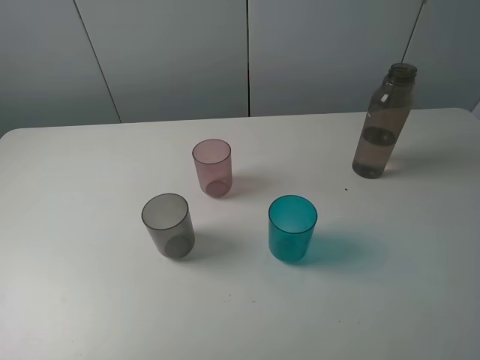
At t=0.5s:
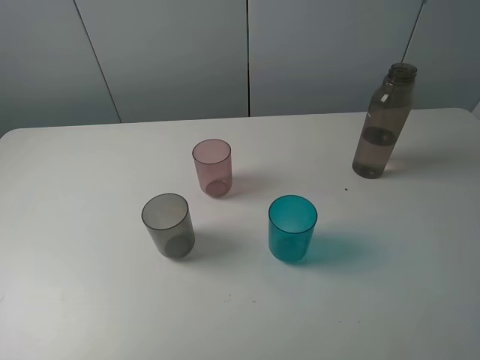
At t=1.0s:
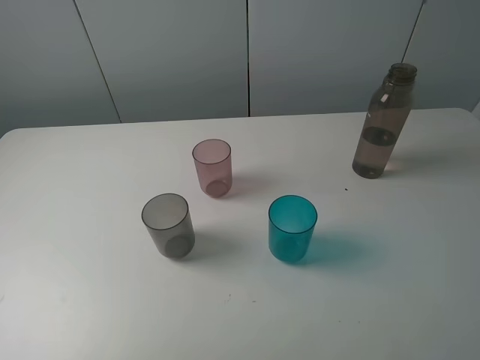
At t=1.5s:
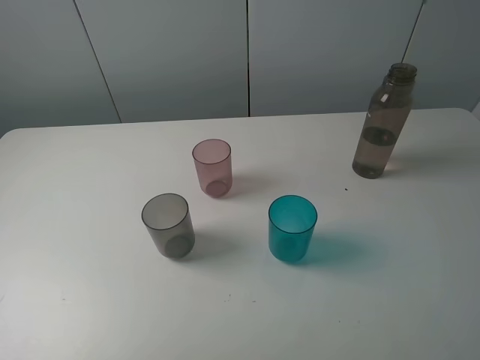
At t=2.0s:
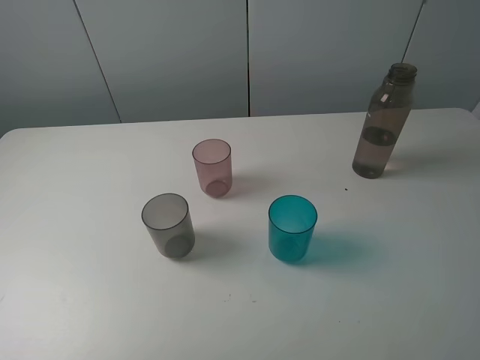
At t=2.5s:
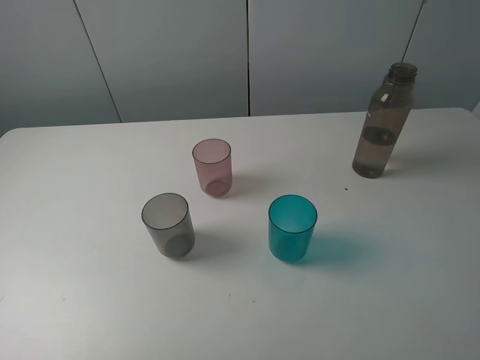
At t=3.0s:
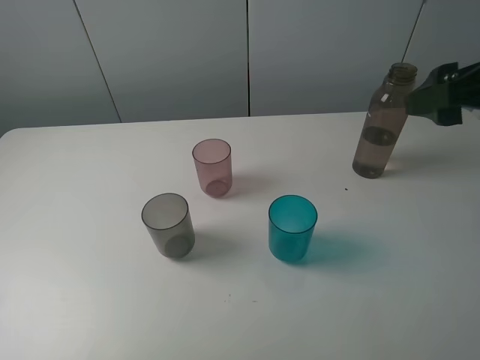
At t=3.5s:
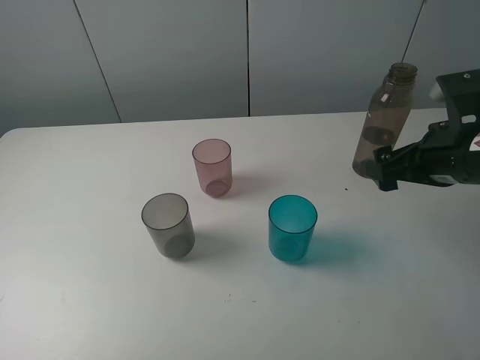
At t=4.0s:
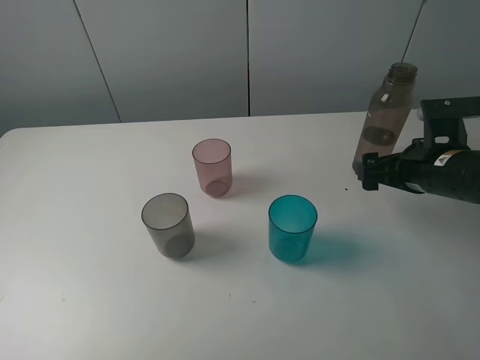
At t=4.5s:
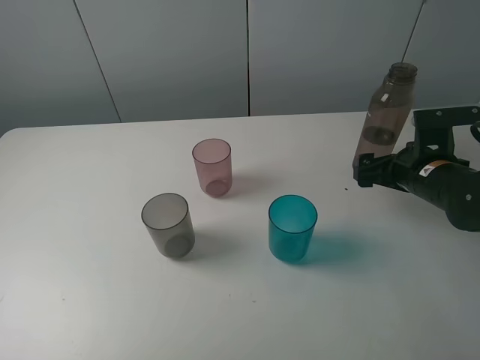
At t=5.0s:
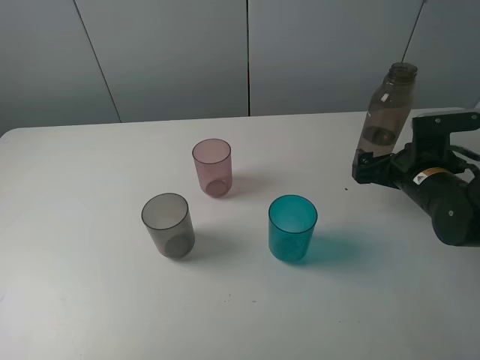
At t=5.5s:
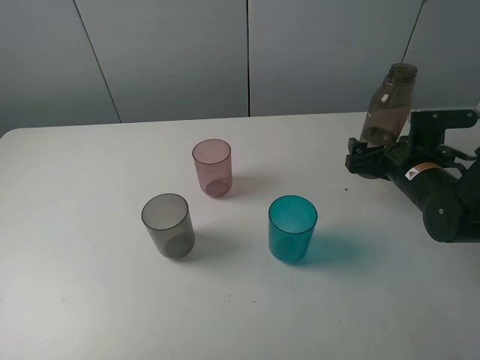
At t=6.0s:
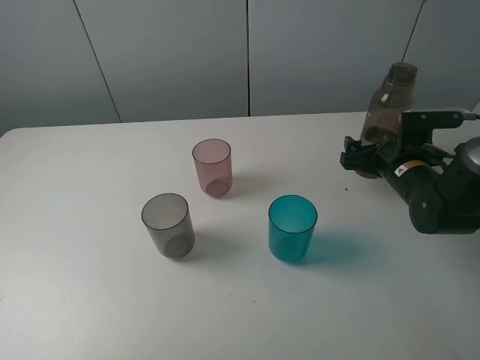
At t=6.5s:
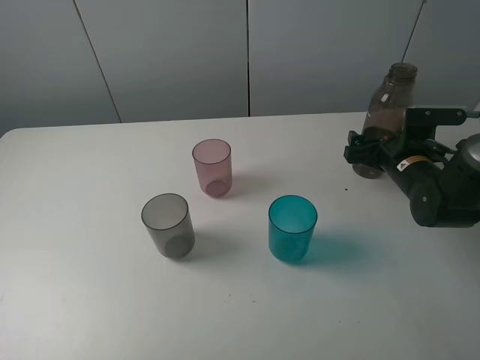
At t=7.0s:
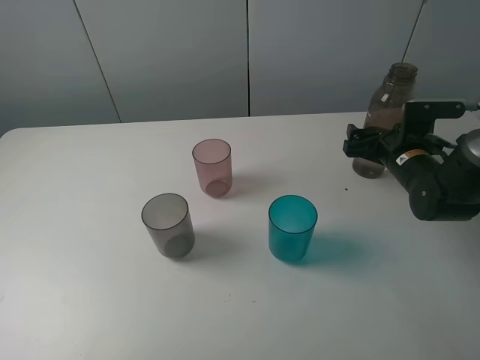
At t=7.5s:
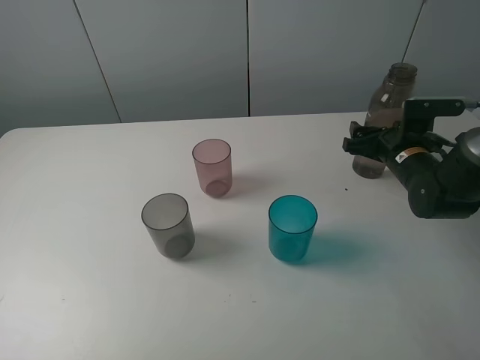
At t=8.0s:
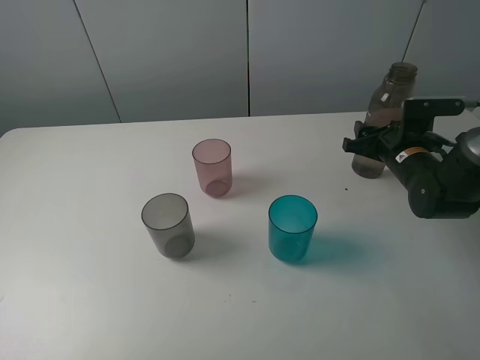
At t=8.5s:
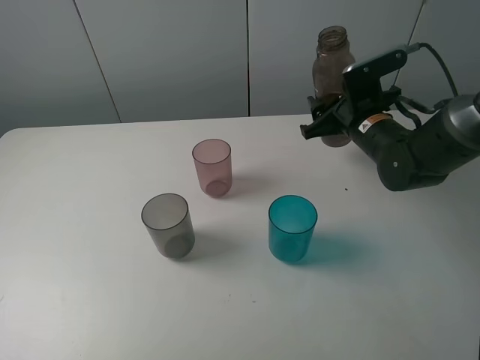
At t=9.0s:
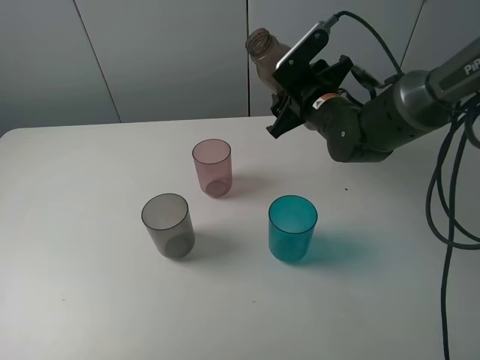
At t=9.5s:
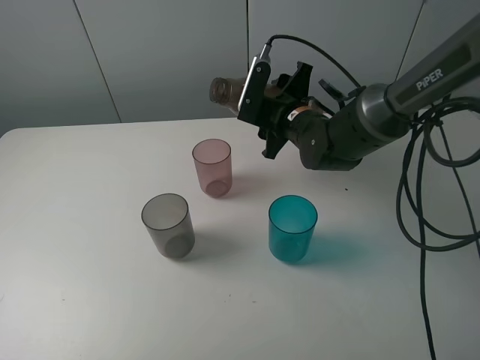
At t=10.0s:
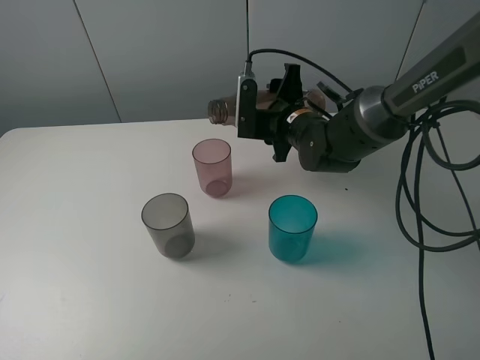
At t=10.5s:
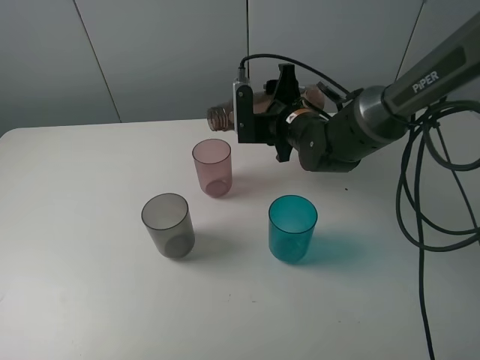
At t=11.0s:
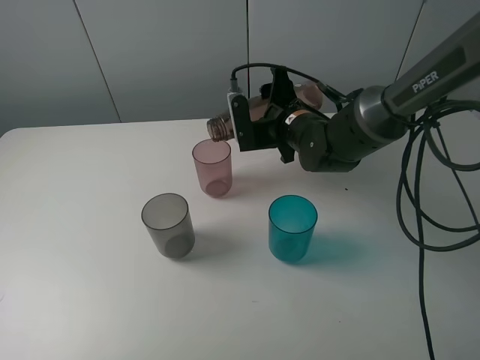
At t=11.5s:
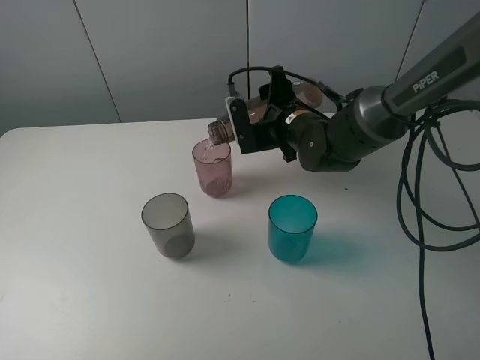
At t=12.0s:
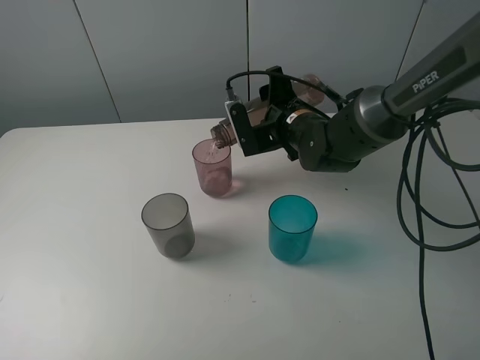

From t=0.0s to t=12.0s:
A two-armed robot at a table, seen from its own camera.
Task of the whole recording: pick up the bottle filled with water and pour water into the middle cup of the three cups.
Step, from t=0.0s to t=8.0s: Grasp the brown bottle with the right gripper.
From t=0.0s to t=2.0s: Both grippers stay put.
From t=2.0s to t=4.0s: The right gripper moves forward and downward, roughly 30 cm.
From t=4.0s to t=6.0s: The right gripper is displaced downward and forward by about 10 cm.
From t=6.0s to t=8.0s: The right gripper closes.
From t=8.0s to t=10.0s: The right gripper heads to the left, covering some 15 cm.

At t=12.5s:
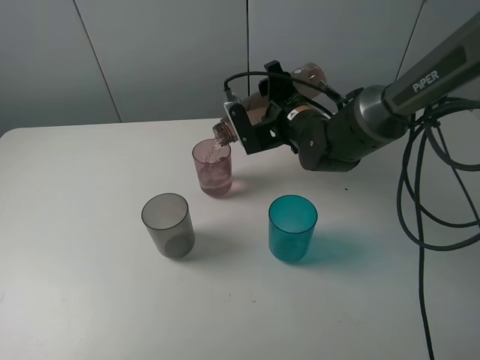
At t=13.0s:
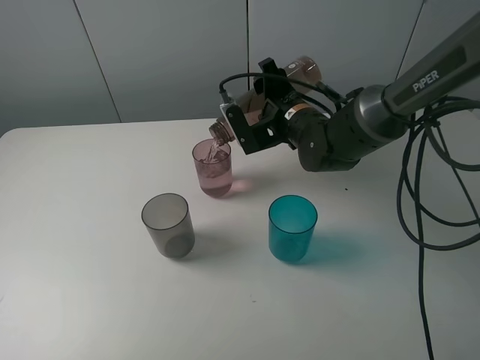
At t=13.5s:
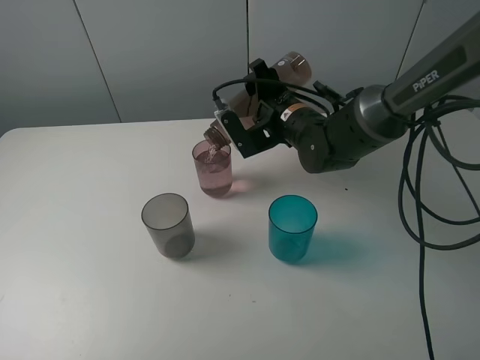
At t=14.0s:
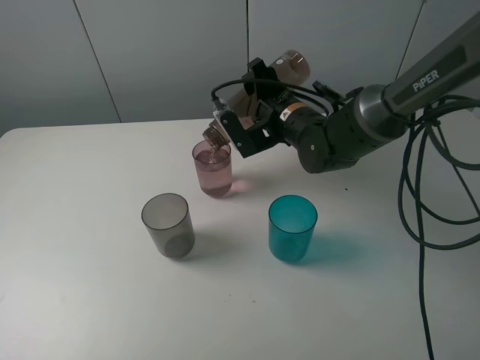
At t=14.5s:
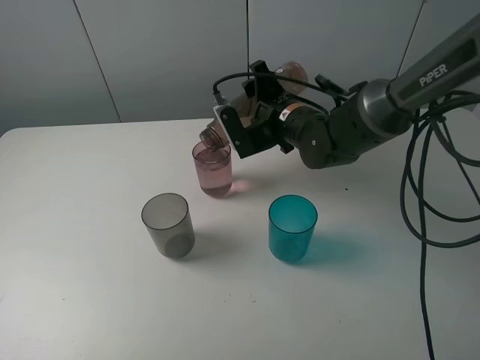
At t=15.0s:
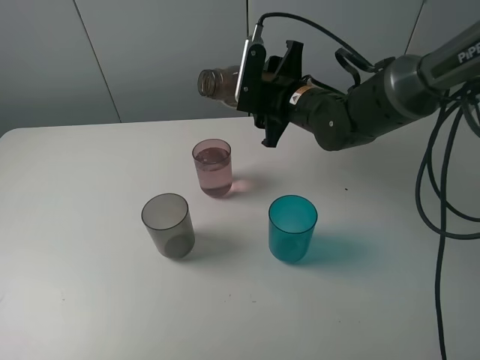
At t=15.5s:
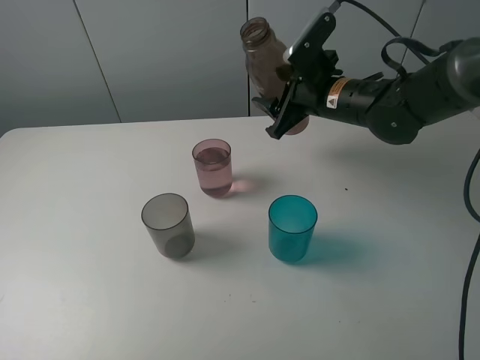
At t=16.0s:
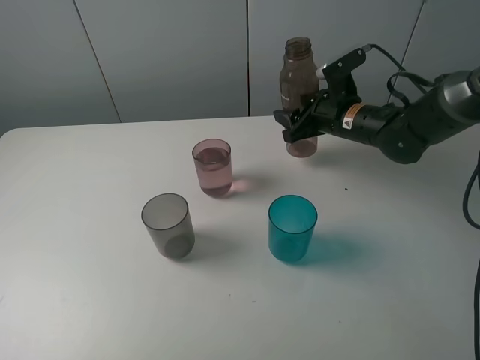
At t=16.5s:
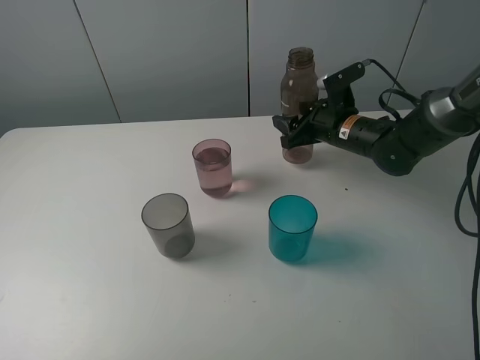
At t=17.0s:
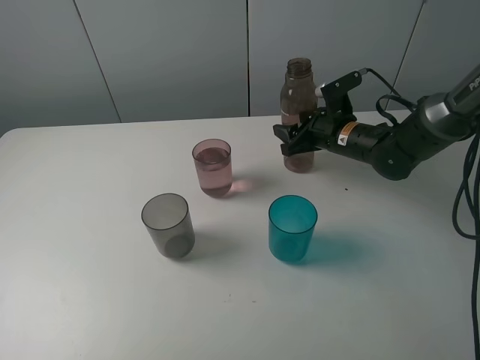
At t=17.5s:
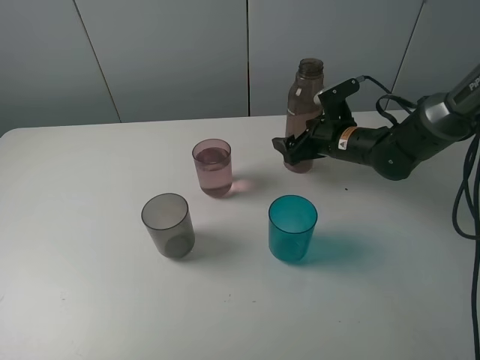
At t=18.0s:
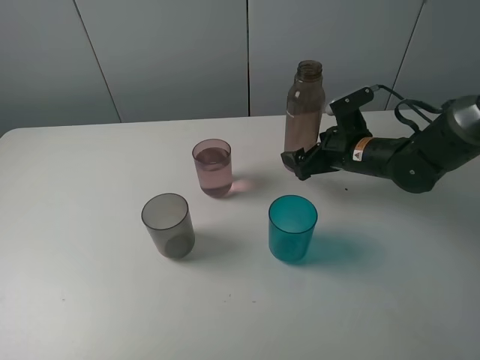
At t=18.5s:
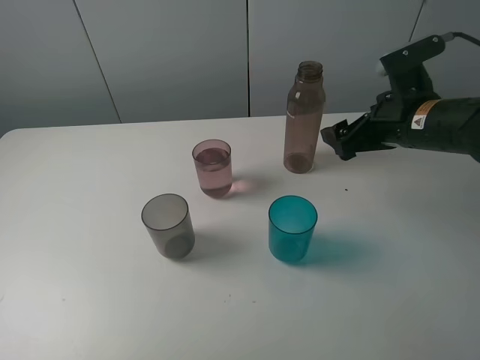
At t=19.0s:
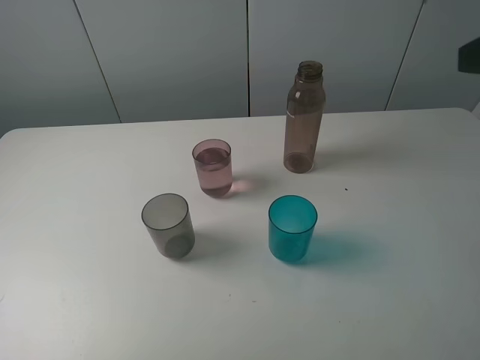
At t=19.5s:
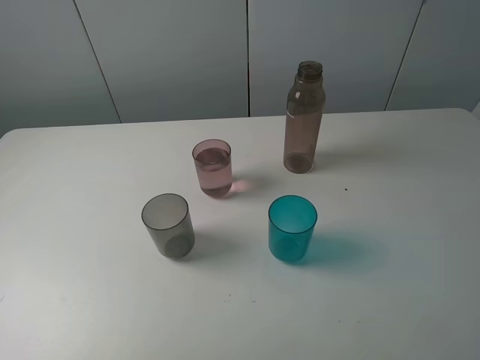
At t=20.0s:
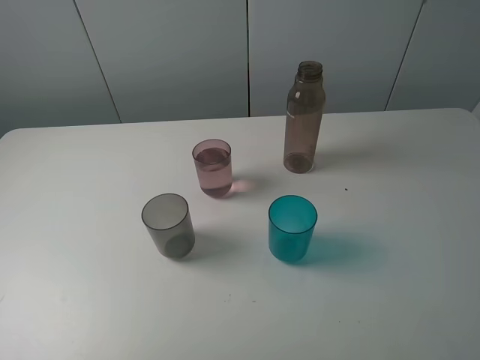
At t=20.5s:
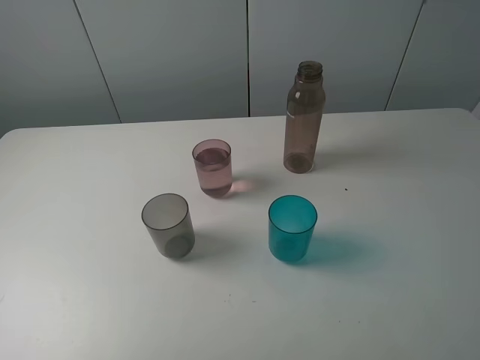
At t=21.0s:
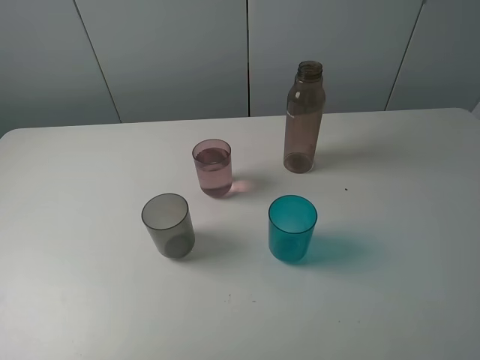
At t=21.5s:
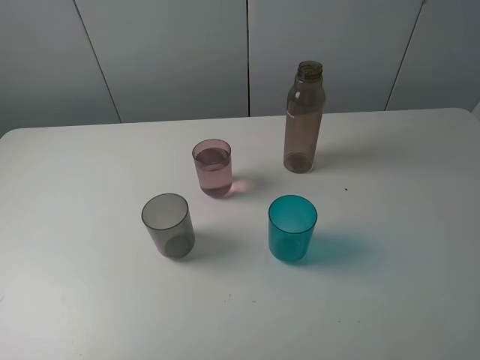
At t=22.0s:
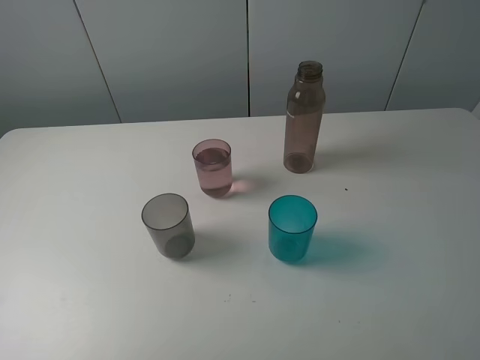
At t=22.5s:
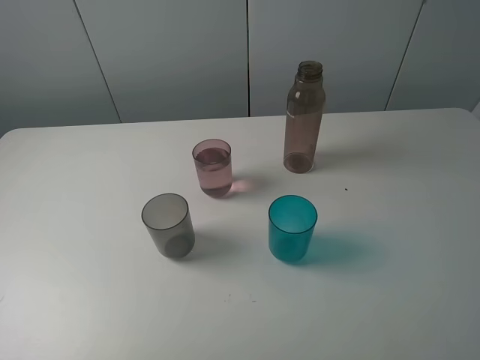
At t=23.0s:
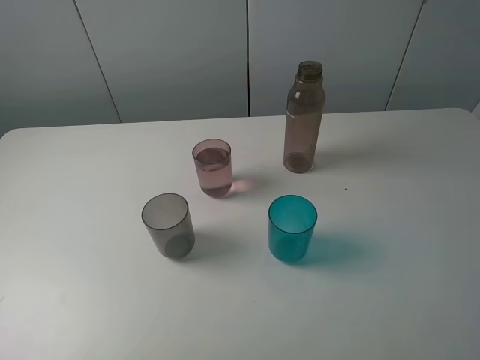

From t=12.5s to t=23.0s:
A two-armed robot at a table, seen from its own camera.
Task of the whole recording: pick up the bottle filled with water and pour water into the middle cup of the three cups.
Step, from t=12.5s to t=15.5s: Pour water from brown bottle to red cup with the right gripper.
Step, from t=16.0s to t=18.0s: Place the brown bottle with the right gripper.
From t=12.5s to t=14.5s: There are only small adjustments of the grippers.
From t=14.5s to t=16.5s: The right gripper is displaced to the right by approximately 10 cm.
From t=16.5s to t=19.0s: The right gripper goes roughly 35 cm upward and backward, and opens up.
From t=21.0s to t=23.0s: Neither gripper changes place.
